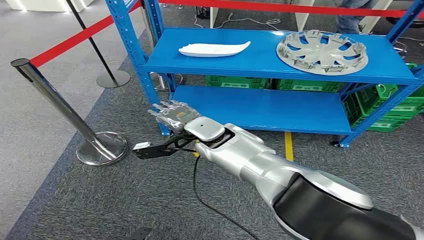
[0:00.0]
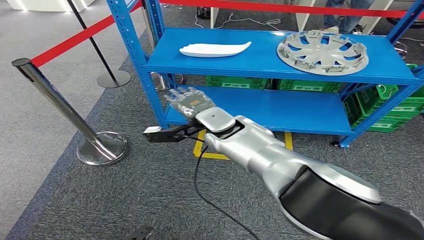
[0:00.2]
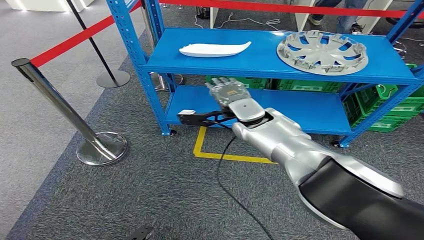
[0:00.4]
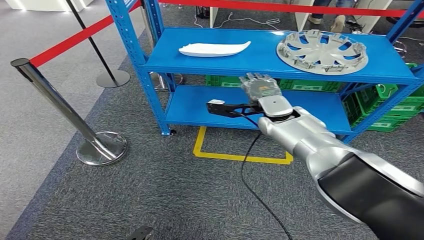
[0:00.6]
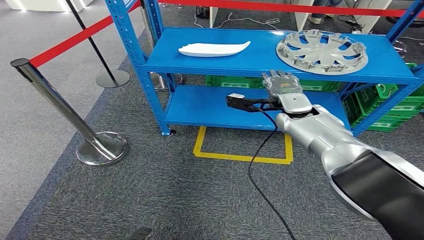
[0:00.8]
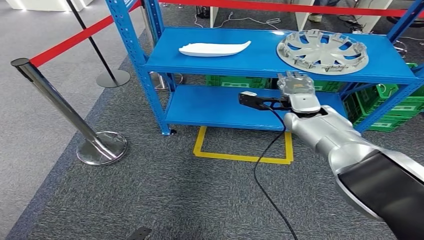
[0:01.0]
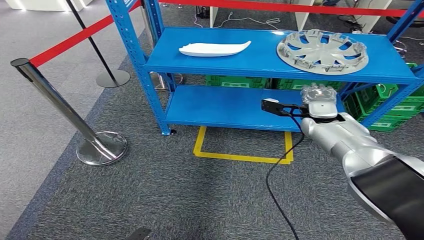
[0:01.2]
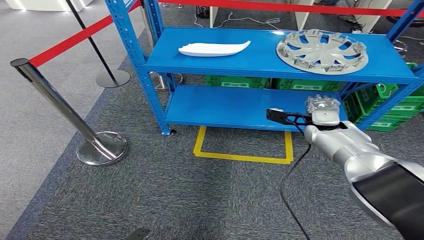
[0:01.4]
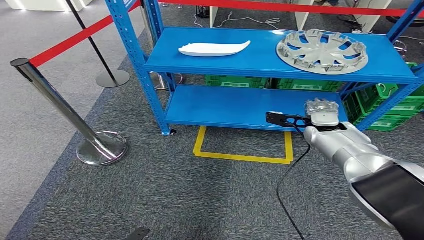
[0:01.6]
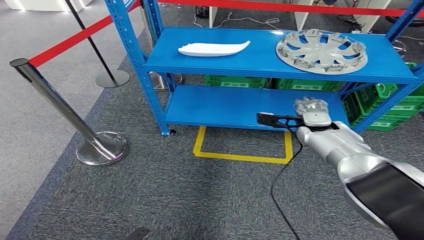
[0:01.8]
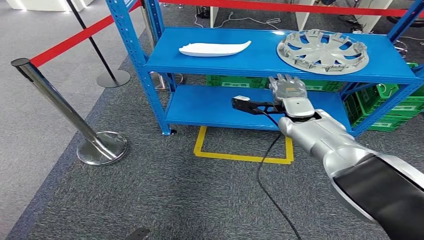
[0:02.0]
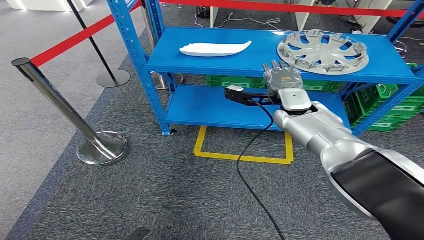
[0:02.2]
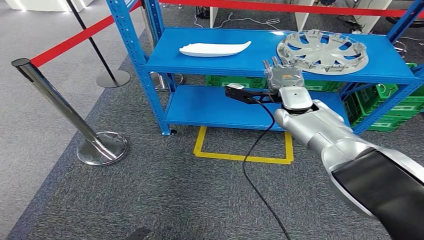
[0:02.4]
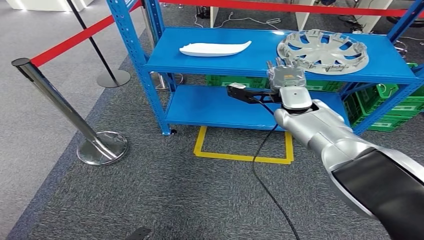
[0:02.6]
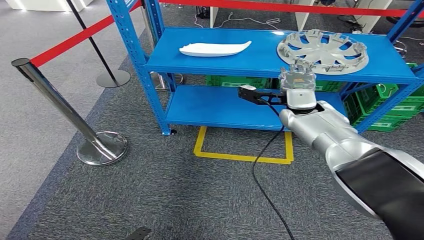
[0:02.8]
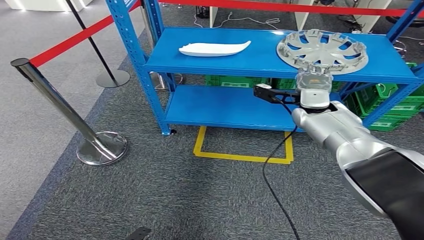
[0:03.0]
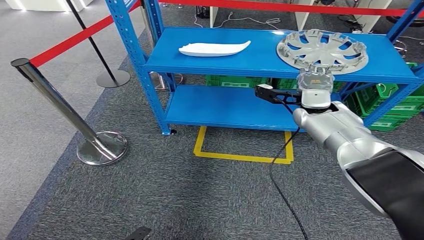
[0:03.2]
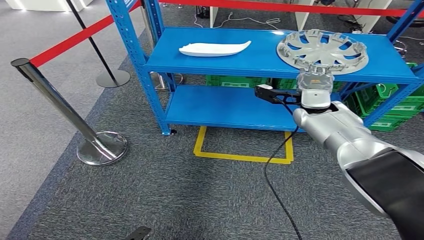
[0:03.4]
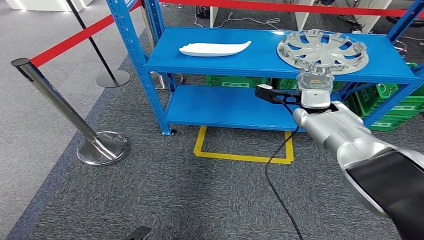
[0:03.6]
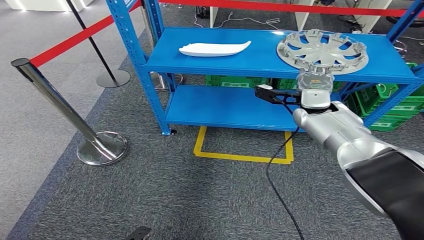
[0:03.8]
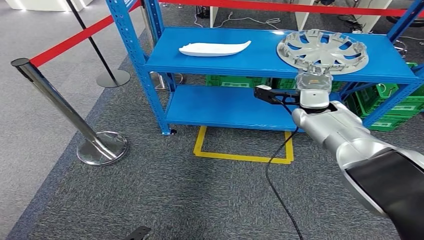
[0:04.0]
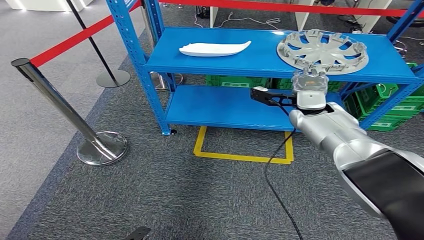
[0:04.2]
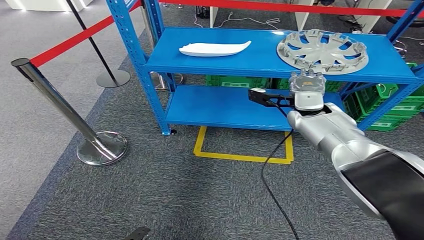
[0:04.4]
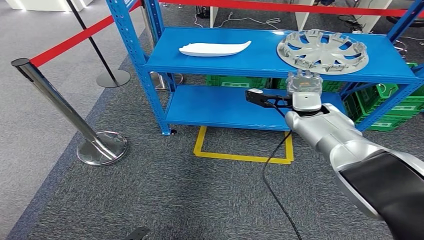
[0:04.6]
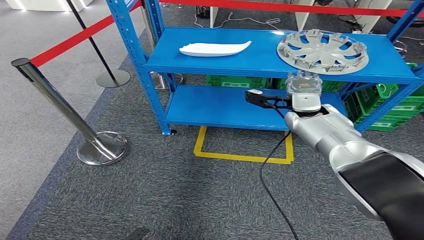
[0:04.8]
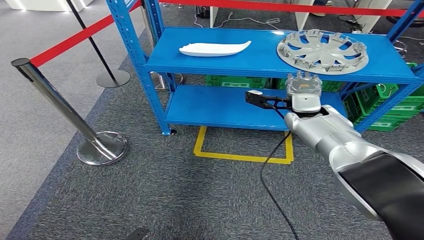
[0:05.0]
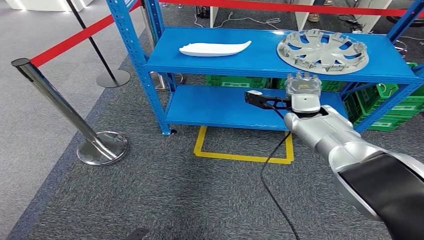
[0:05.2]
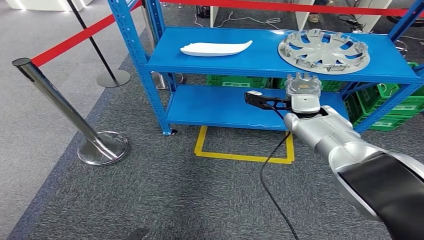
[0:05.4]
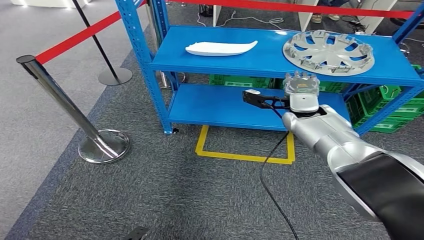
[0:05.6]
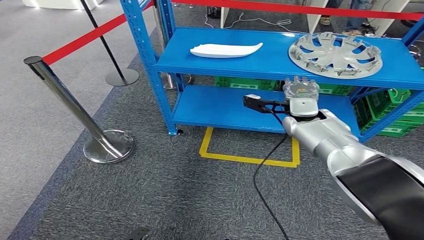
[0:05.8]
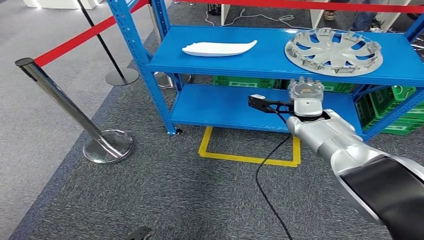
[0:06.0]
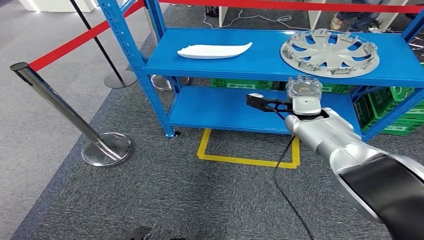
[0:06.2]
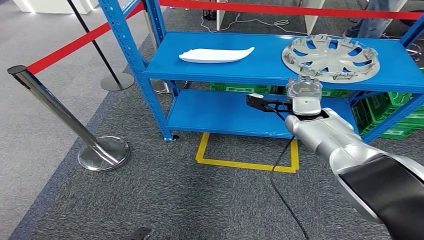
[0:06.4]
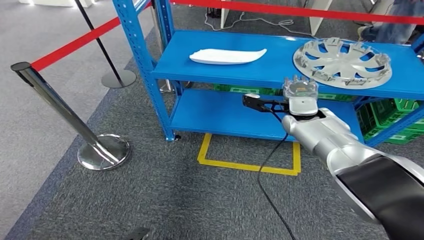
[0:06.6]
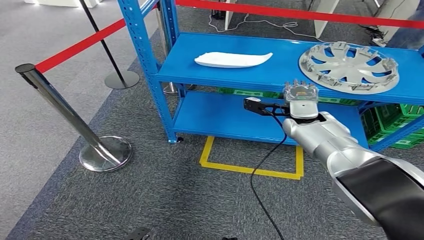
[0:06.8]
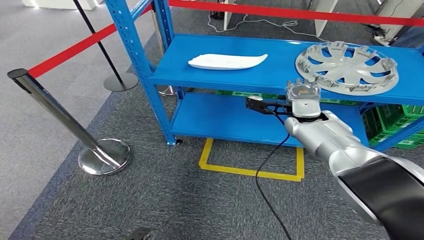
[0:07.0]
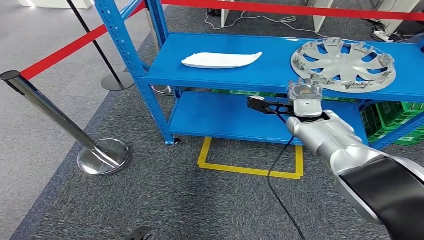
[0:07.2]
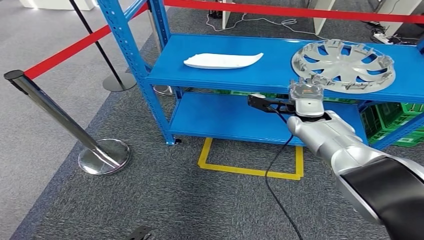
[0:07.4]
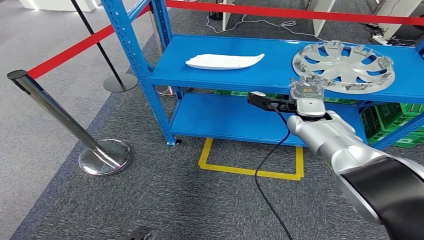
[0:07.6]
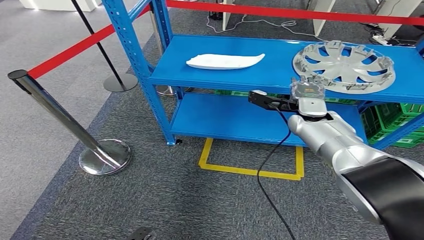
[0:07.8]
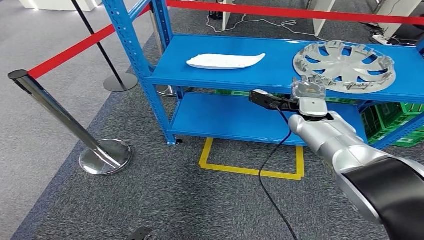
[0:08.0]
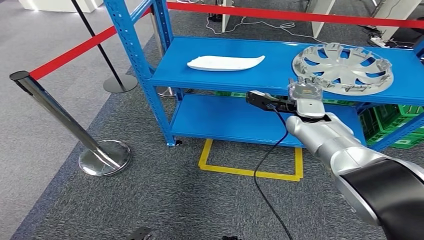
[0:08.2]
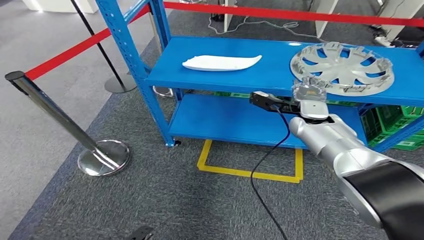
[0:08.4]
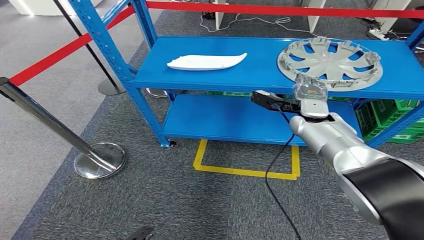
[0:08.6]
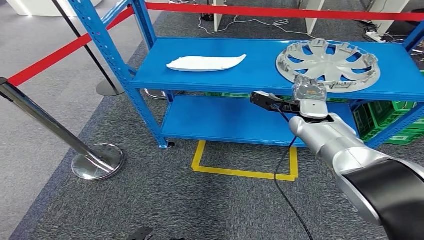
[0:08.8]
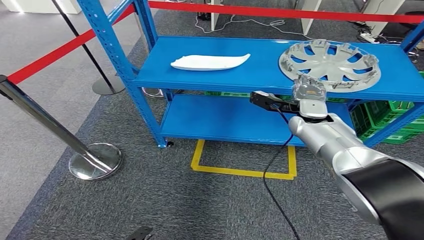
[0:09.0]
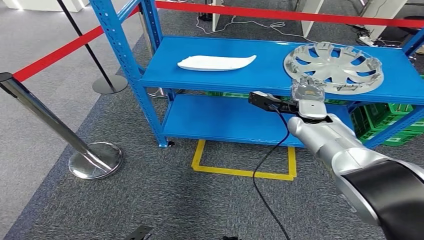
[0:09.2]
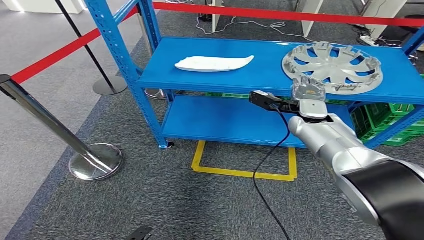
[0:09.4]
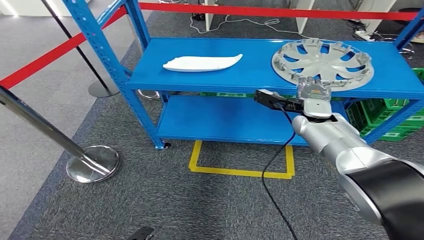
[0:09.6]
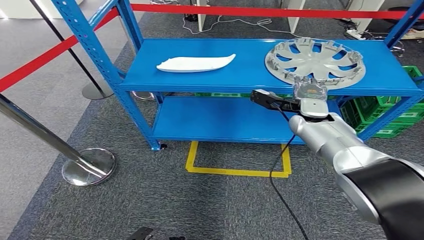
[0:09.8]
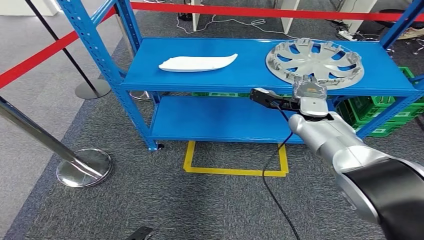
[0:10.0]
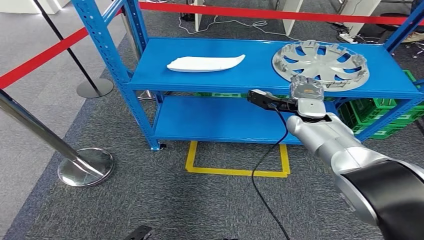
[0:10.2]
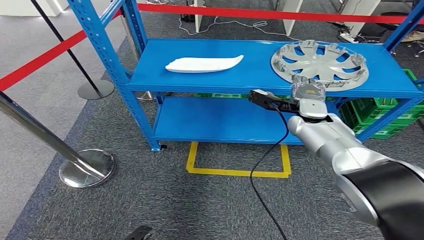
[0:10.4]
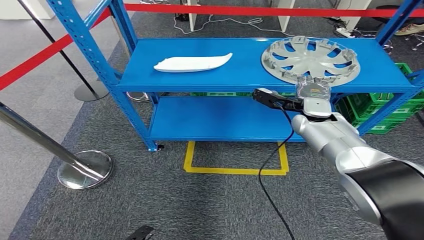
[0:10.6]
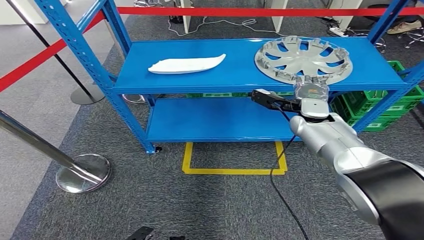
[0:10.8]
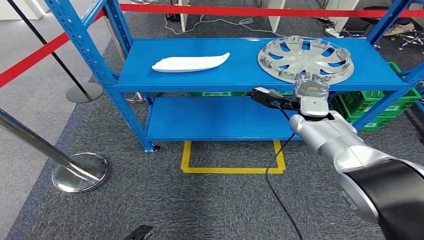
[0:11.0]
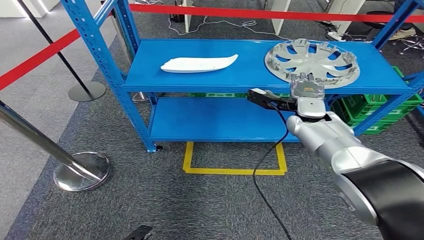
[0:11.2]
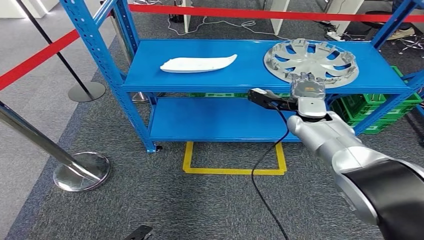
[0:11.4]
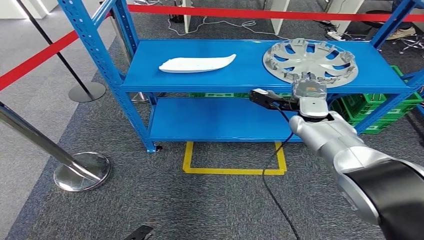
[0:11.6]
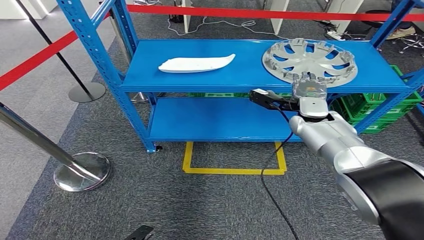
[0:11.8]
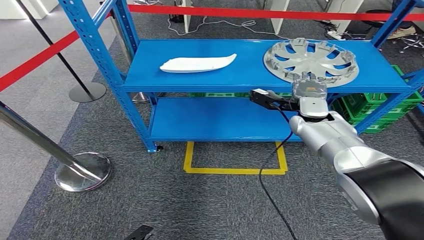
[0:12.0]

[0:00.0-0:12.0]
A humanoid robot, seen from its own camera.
0:01.6 to 0:03.0: The right hand travels upward by roughly 5 cm.
0:03.0 to 0:04.4: Both hands stay put.

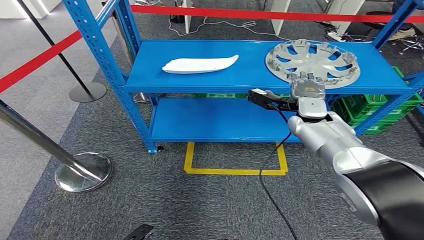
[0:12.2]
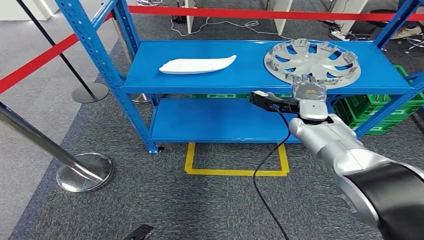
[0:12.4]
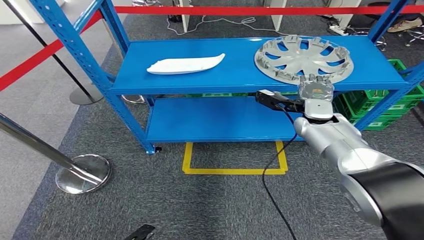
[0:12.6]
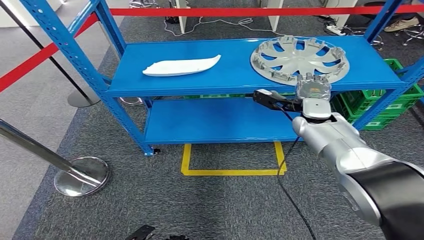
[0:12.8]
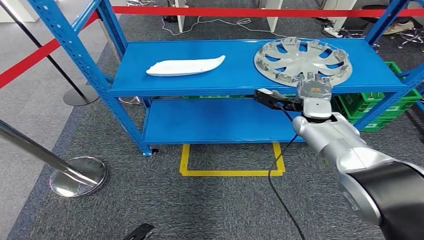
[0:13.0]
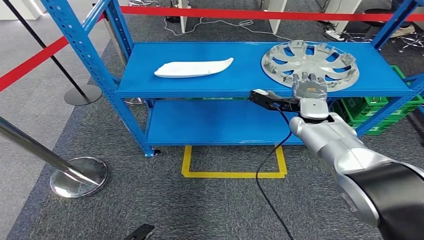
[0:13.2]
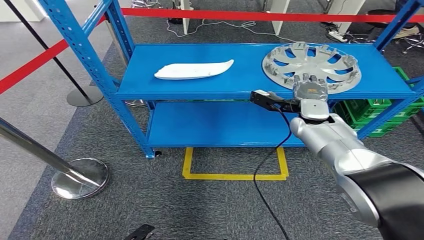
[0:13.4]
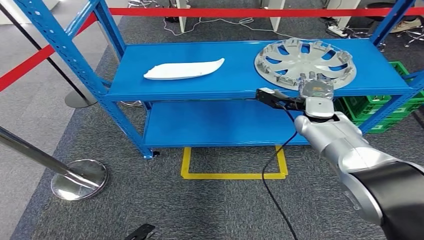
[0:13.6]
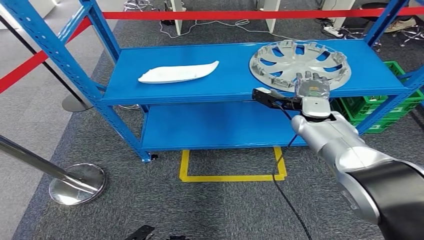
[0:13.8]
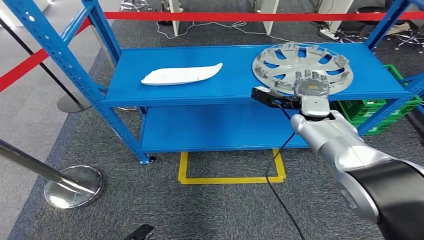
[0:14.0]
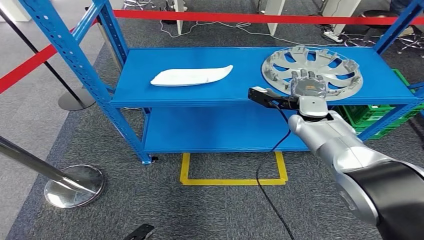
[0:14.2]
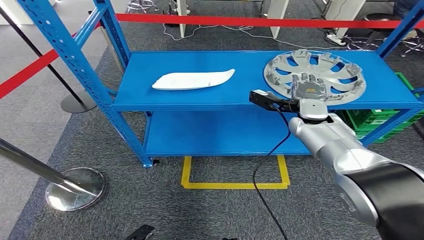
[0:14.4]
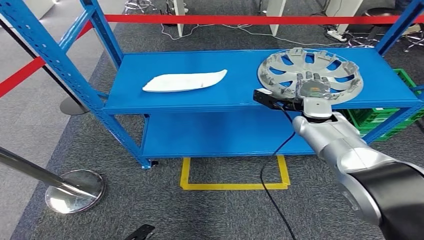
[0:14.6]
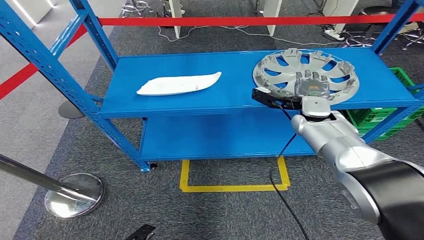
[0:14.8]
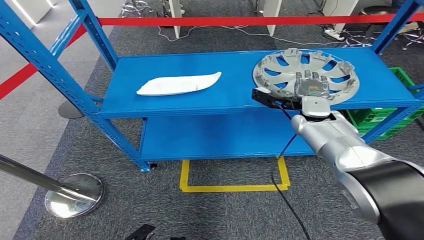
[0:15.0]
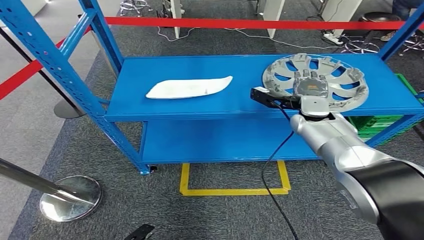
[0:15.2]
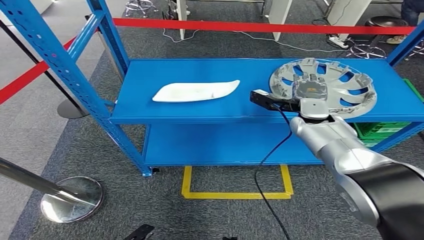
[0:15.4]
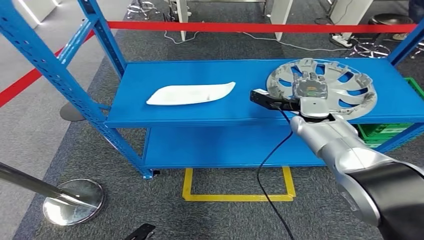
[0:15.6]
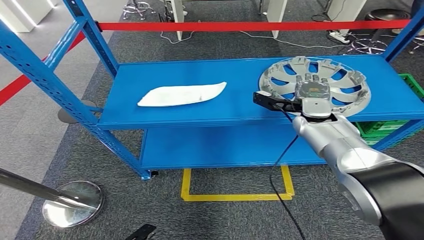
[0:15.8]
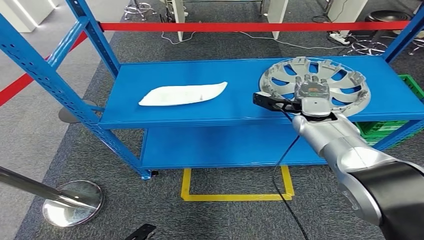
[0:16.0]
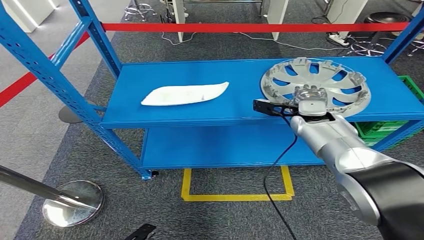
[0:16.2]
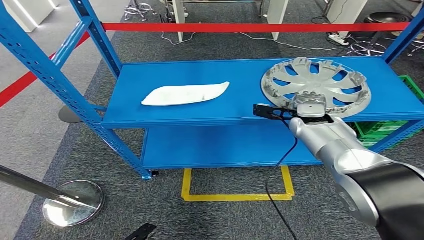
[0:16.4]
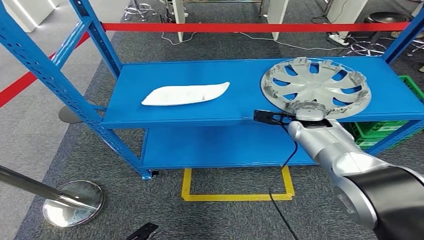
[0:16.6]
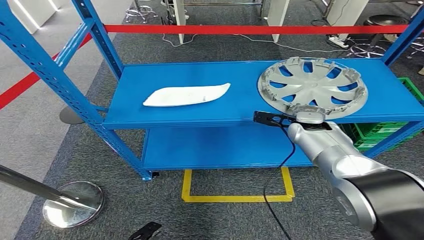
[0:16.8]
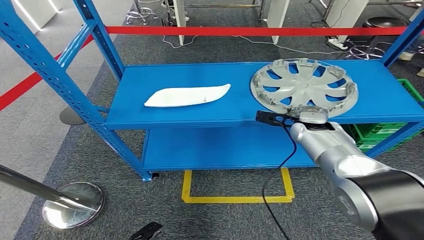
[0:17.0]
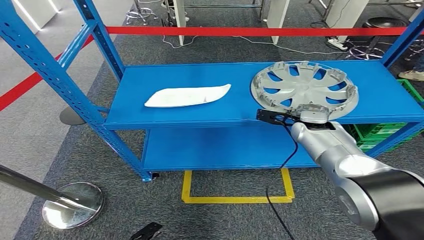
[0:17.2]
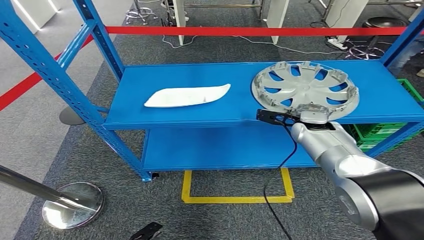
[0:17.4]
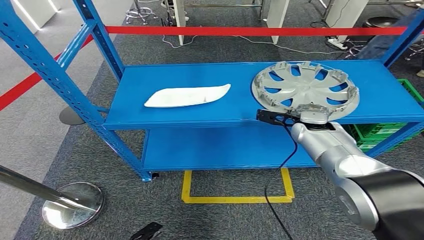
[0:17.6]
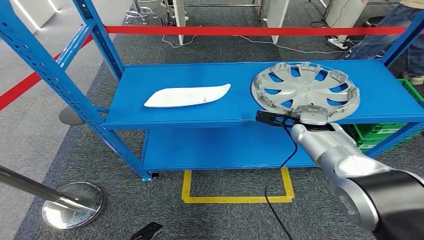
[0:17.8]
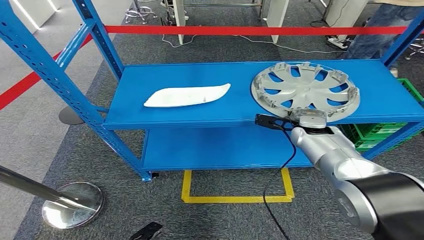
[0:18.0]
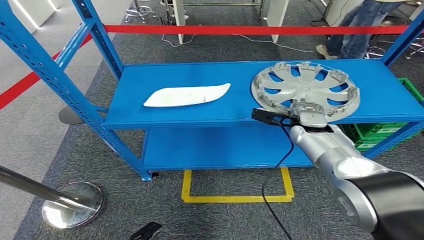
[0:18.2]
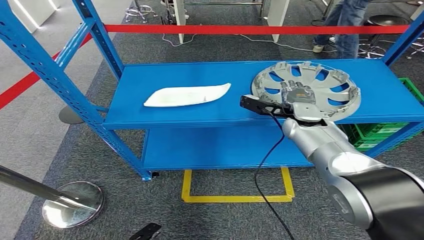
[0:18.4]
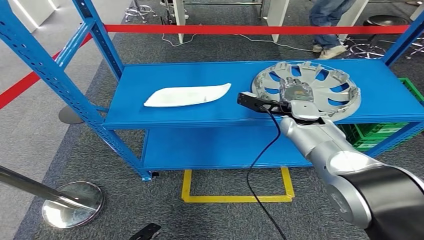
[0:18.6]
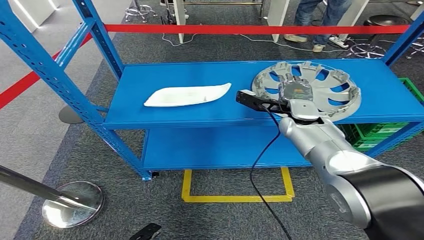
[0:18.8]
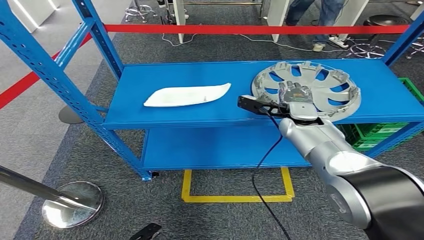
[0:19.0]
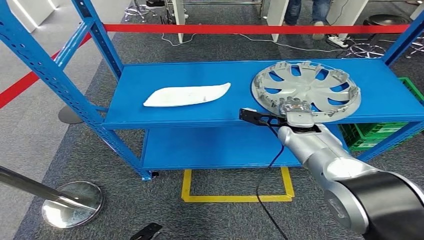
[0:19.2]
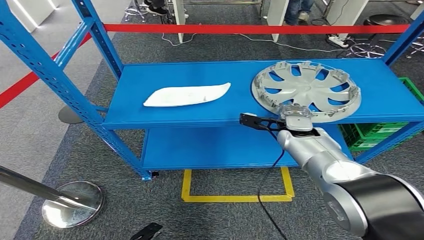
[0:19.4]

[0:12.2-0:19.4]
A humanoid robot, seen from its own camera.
0:16.6 to 0:18.0: The hands make only small movements.
